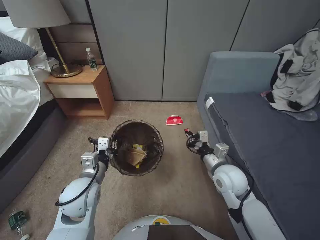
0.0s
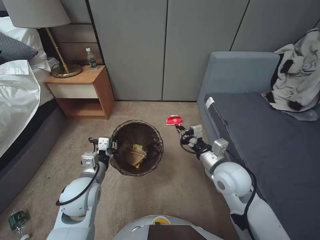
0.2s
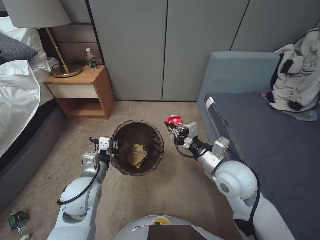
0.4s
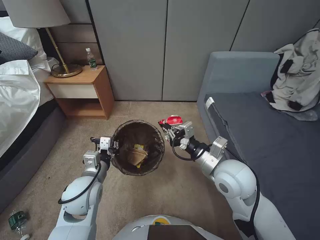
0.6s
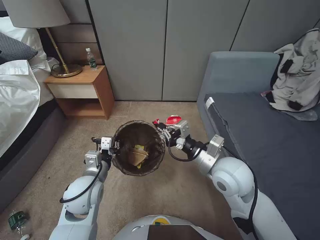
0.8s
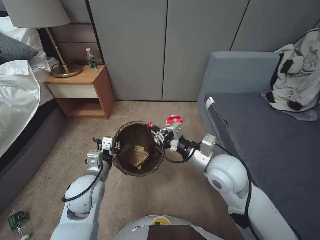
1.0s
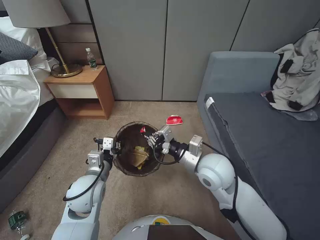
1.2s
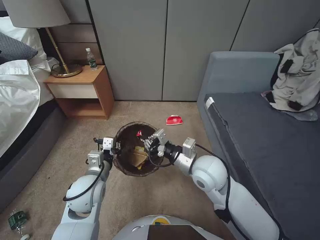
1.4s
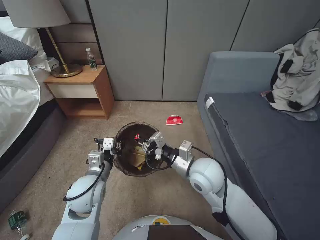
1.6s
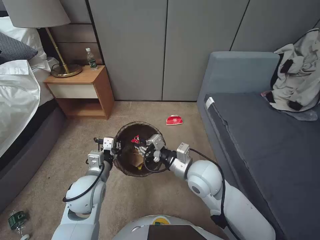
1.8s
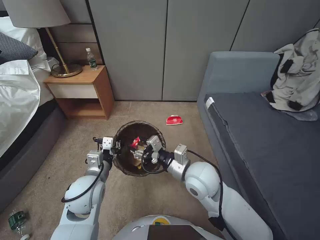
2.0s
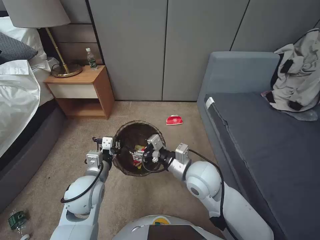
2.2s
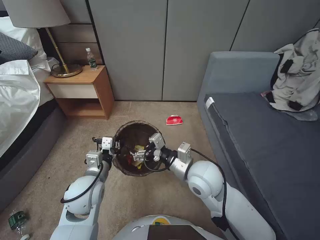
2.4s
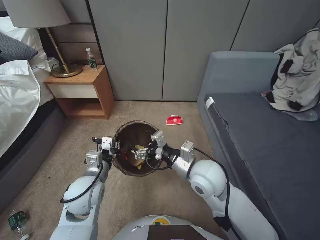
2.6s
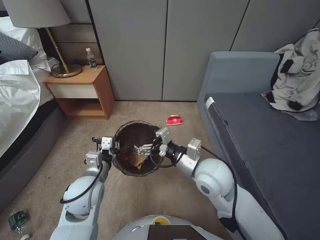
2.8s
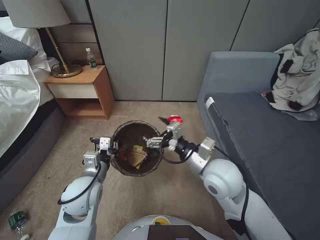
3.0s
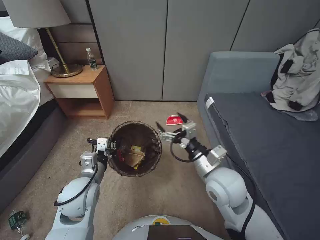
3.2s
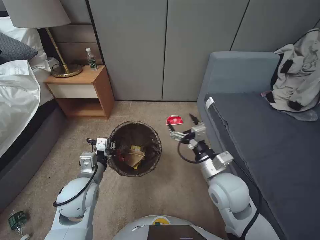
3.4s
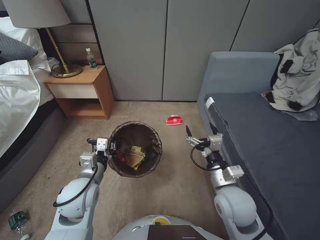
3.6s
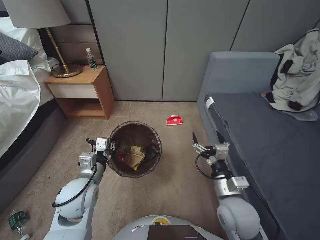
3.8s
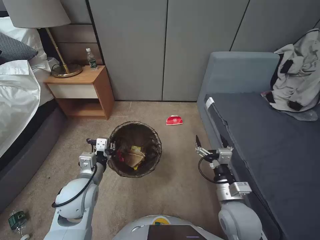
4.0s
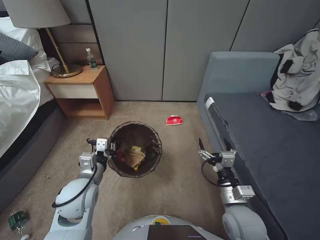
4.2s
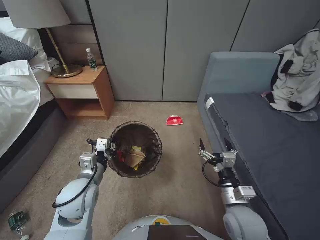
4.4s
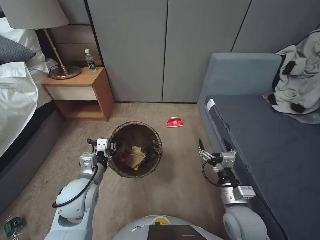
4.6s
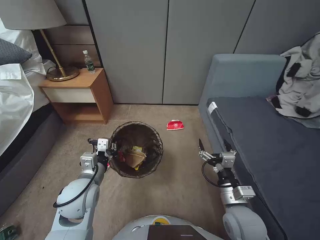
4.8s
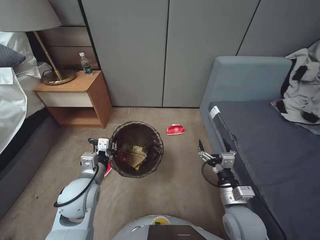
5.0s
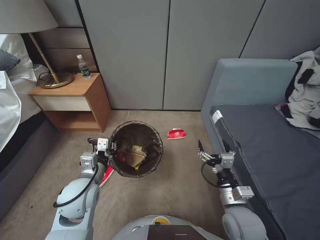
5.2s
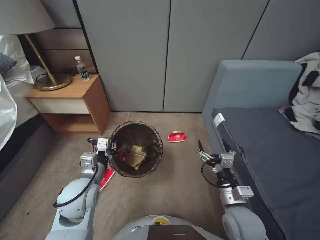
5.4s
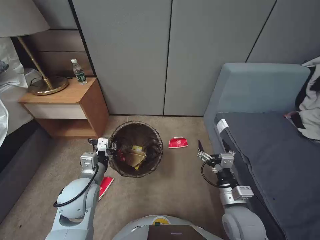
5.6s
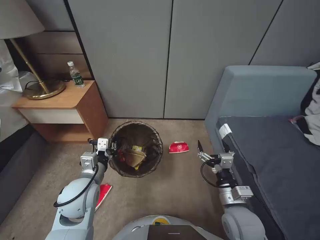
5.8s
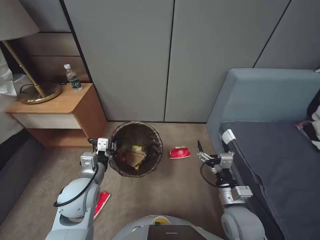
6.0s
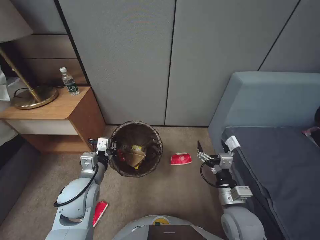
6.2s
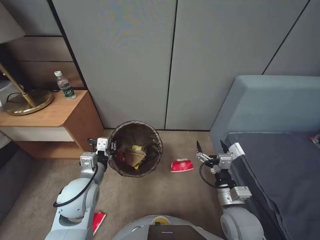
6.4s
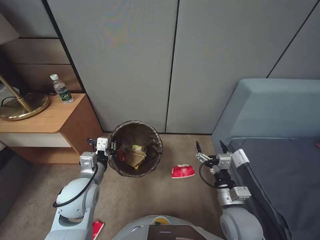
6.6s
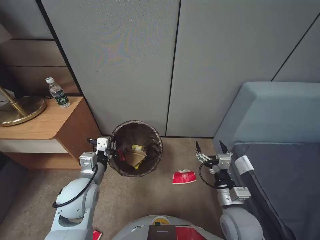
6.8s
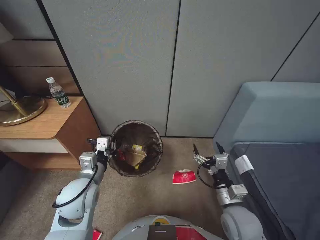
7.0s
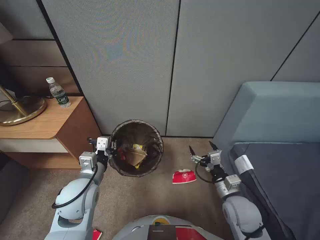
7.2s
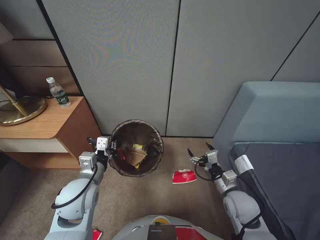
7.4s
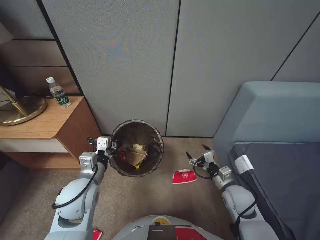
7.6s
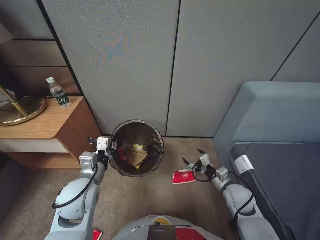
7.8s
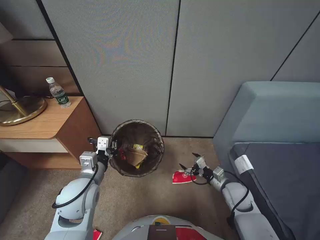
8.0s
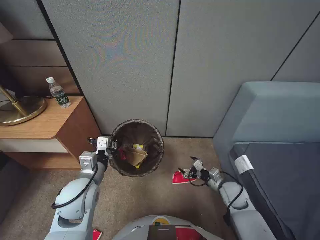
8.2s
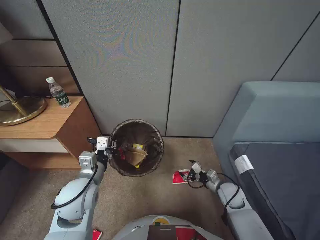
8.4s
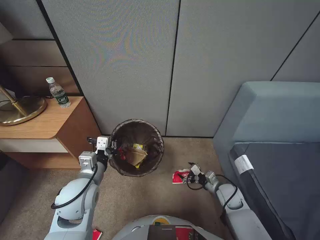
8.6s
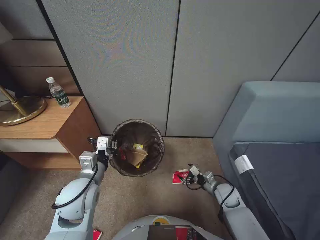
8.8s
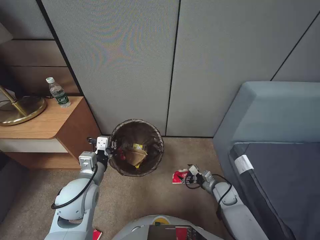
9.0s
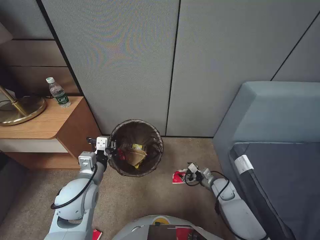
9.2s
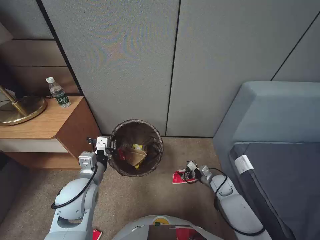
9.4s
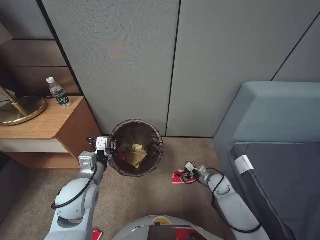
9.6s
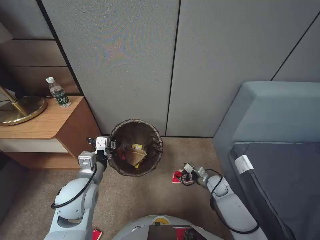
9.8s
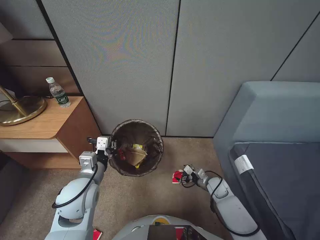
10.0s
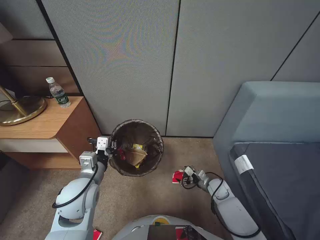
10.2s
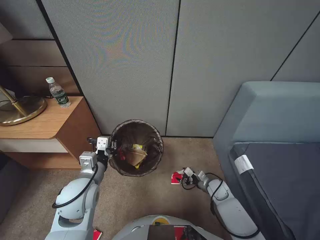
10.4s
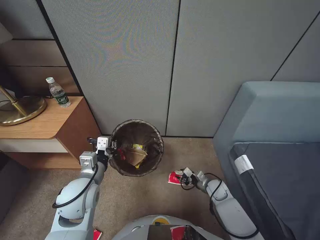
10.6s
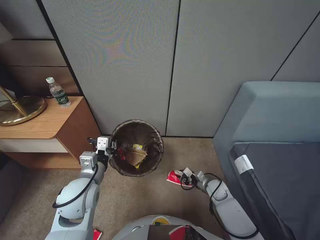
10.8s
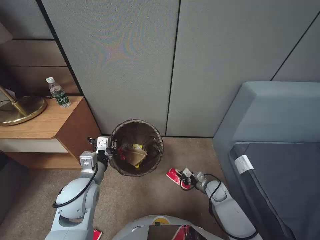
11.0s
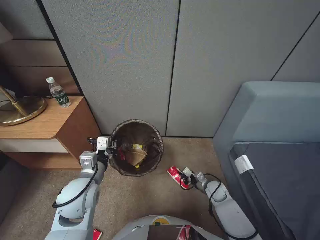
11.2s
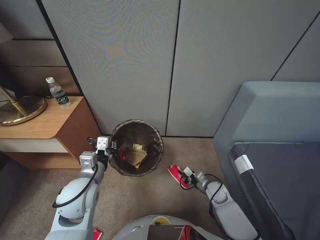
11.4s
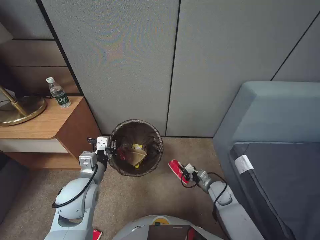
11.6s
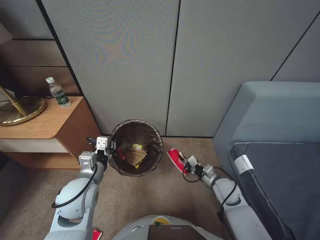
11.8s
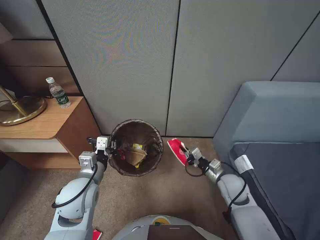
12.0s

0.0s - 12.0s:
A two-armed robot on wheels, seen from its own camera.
Task of the whole recording: Pick up the trash bin, then pick up the garbage from the floor and place it into the trash bin.
0.0s - 1.6s: The right gripper shifts roughly 15 cm to the left and upward.
1.6s - 3.0s: The right gripper opens up.
3.0s - 4.4s: The right gripper goes roughly 15 cm downward, backward and to the right.
6.0s - 7.6s: The right gripper shifts approximately 10 cm forward, to the right and downward.
7.6s - 9.0s: The right gripper moves downward, some 10 cm.
9.0s - 10.4s: The right gripper ends up roughly 5 cm from where it was.
10.4s - 12.0s: The right gripper travels upward by some 15 cm, and closes its fingers.

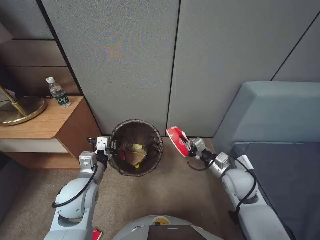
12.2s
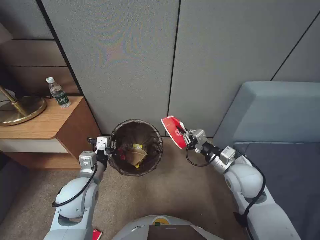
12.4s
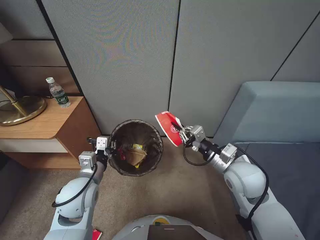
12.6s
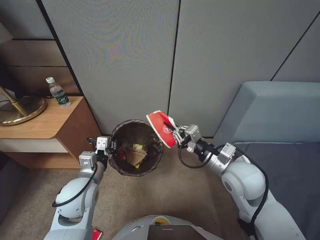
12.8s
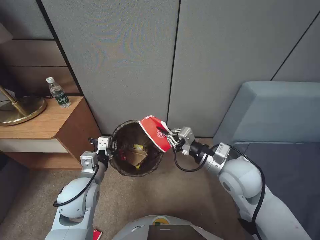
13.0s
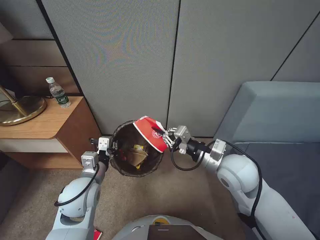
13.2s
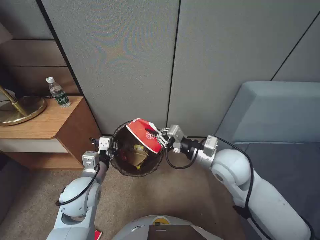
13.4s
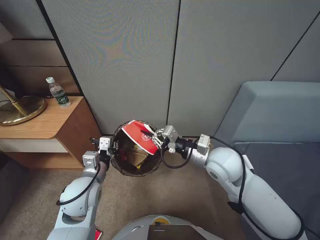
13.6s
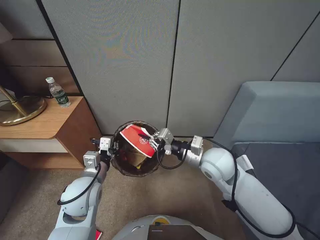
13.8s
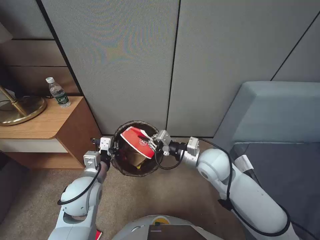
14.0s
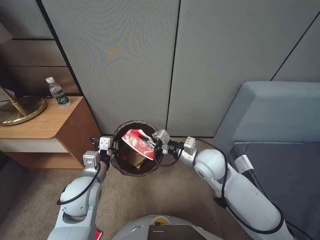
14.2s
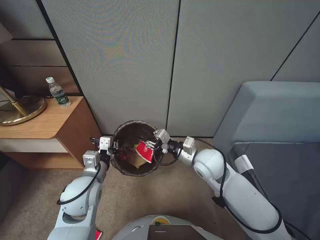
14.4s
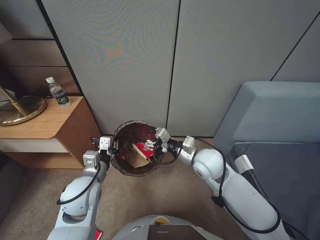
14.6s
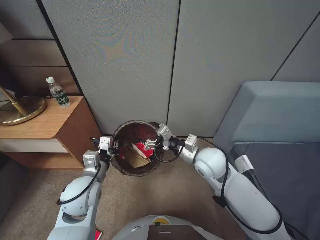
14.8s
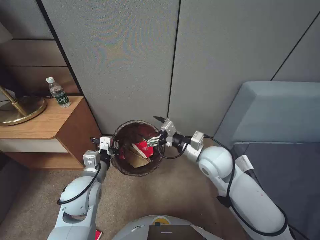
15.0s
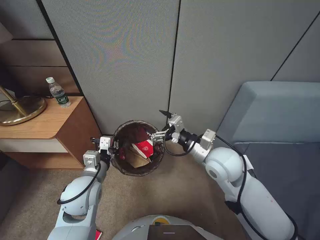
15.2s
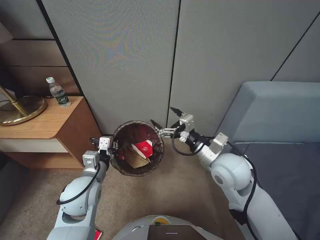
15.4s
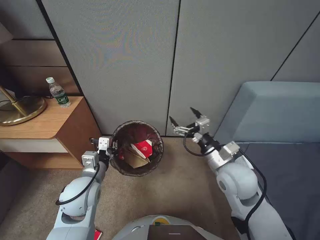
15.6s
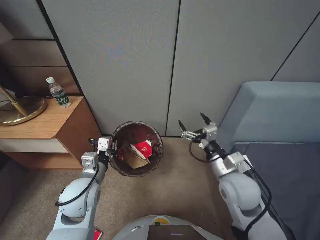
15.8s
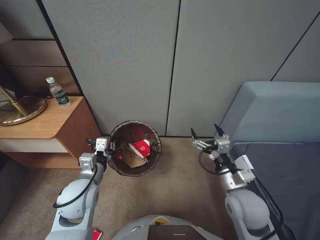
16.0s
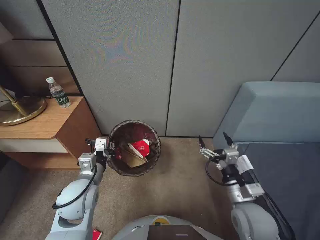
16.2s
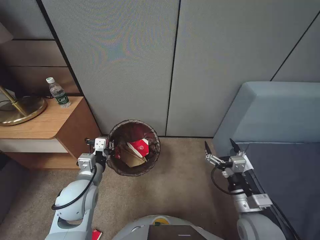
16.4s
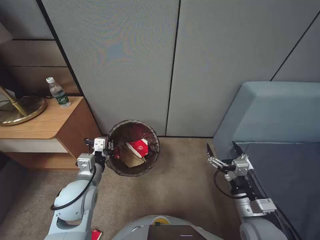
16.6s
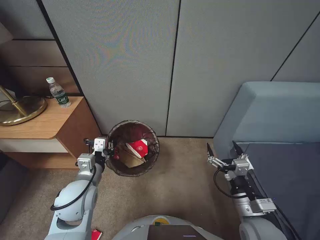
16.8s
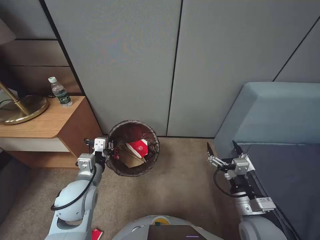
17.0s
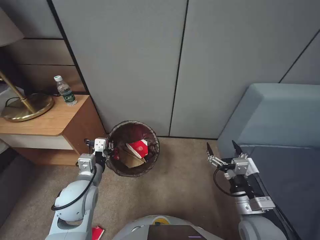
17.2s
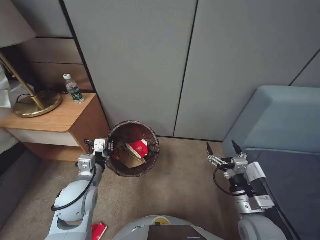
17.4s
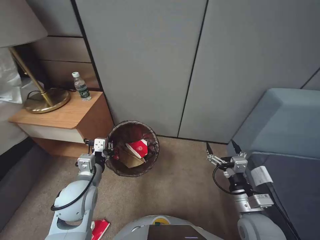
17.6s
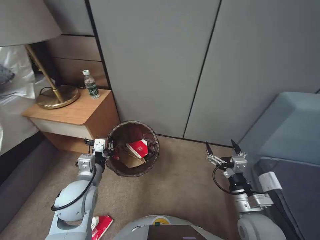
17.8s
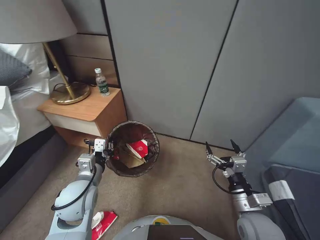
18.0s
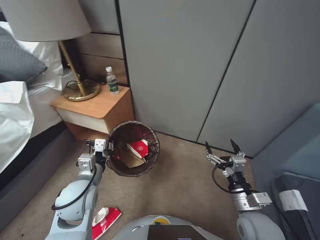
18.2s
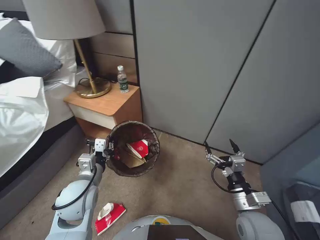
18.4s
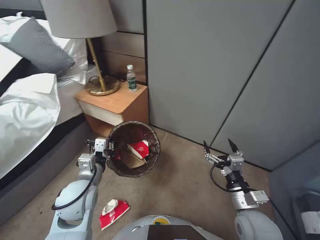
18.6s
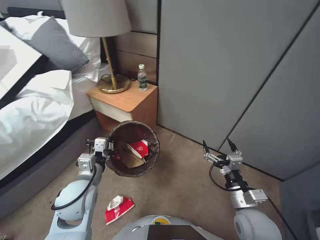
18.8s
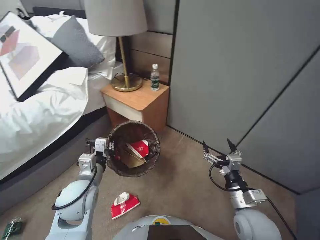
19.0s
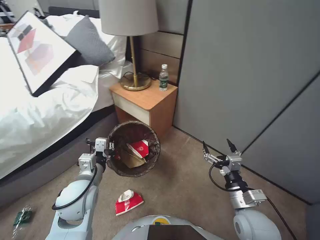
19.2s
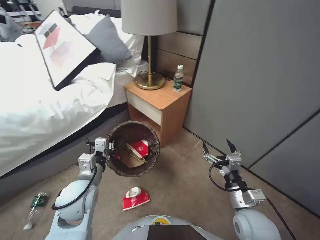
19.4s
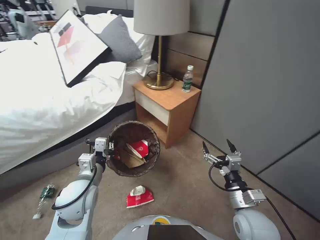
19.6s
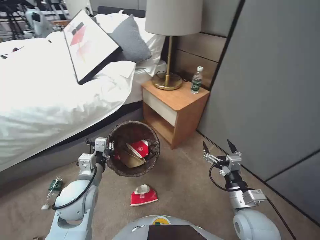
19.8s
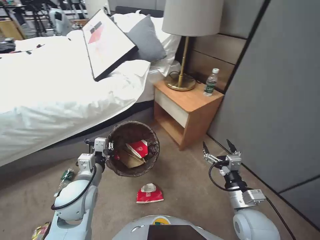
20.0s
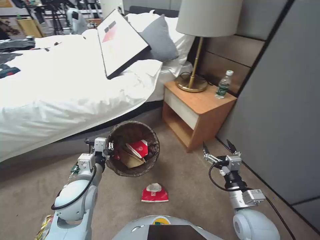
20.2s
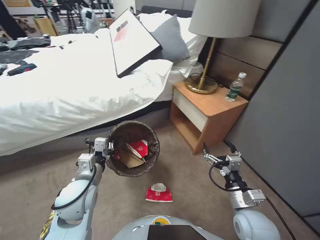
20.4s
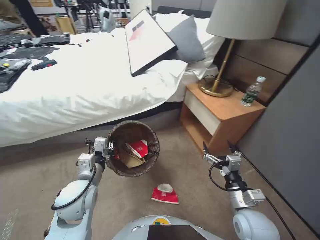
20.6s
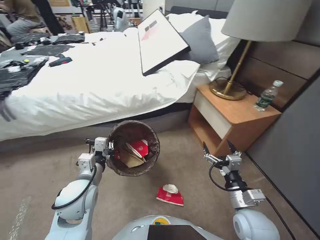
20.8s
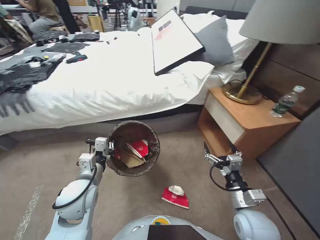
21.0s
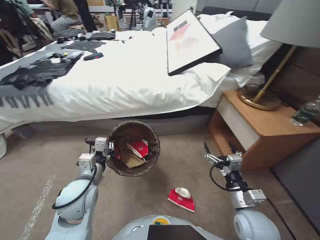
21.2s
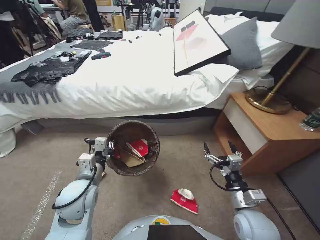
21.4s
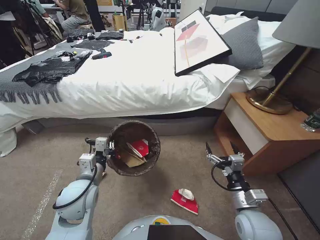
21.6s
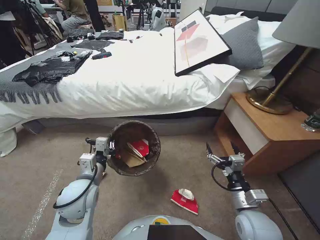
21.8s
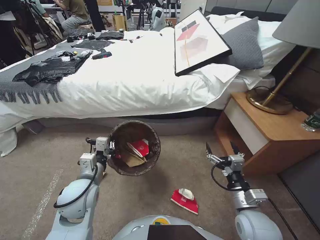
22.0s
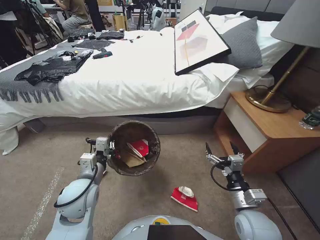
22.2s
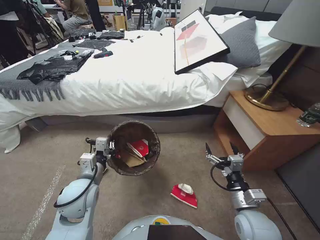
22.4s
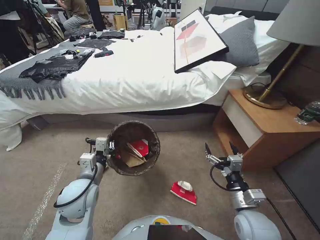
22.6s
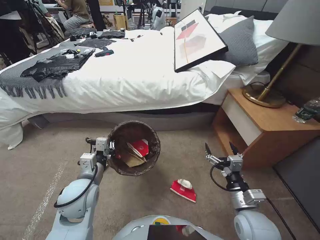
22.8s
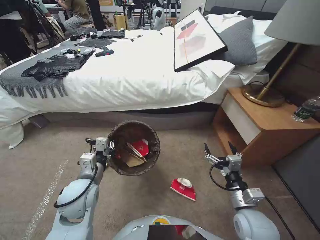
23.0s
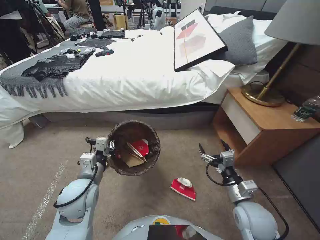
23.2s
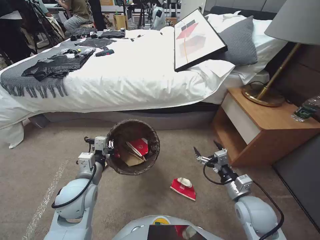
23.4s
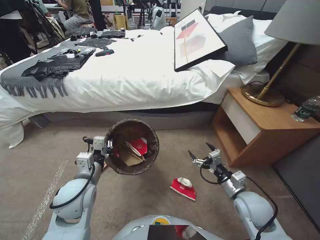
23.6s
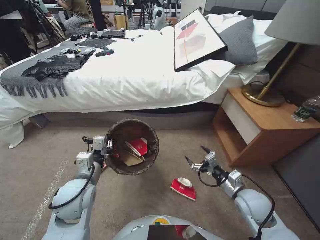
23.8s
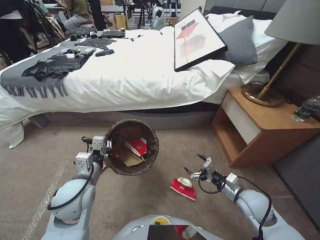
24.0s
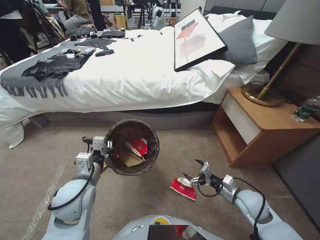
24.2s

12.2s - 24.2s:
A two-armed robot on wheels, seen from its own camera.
Task of the whole recording: Pick up the trash bin, then pick up the garbage from the floor and place it into the trash bin.
12.2s - 13.8s: The right gripper heads upward and to the left, covering about 15 cm.
13.8s - 15.2s: The right gripper opens up.
15.2s - 16.6s: The right gripper shifts roughly 20 cm backward, downward and to the right.
22.6s - 24.2s: The right gripper travels forward, to the right and downward by about 10 cm.
